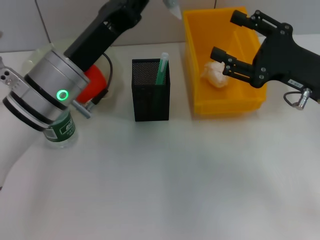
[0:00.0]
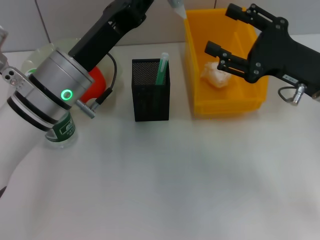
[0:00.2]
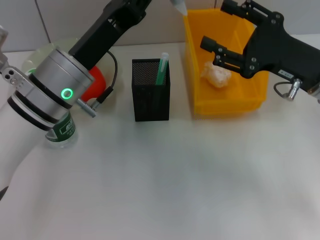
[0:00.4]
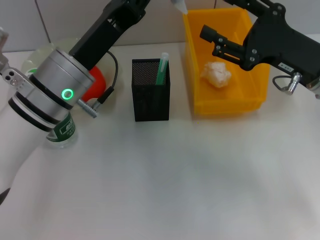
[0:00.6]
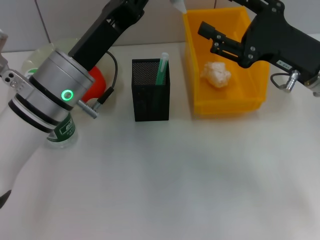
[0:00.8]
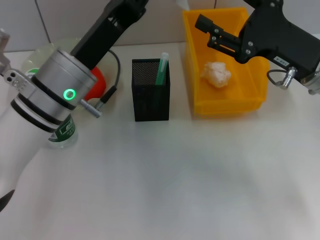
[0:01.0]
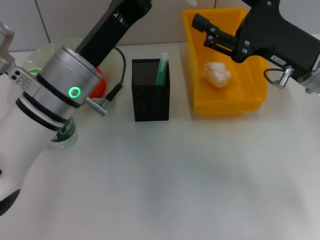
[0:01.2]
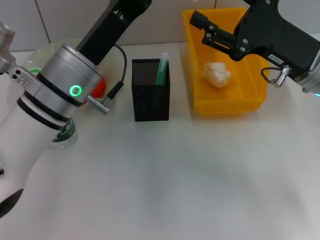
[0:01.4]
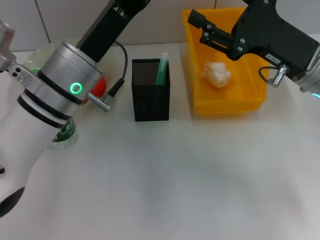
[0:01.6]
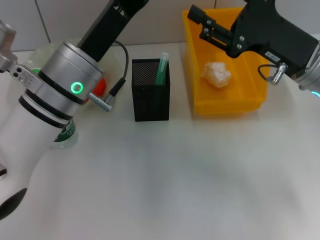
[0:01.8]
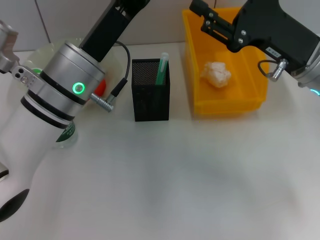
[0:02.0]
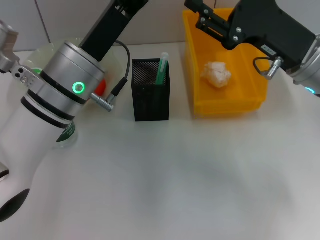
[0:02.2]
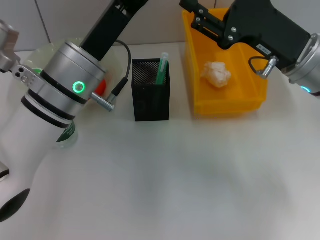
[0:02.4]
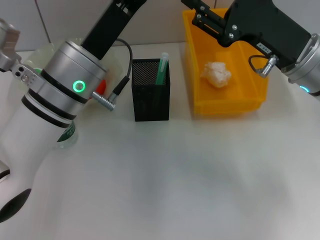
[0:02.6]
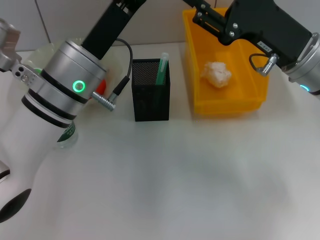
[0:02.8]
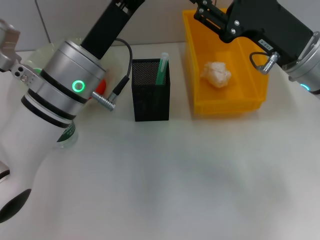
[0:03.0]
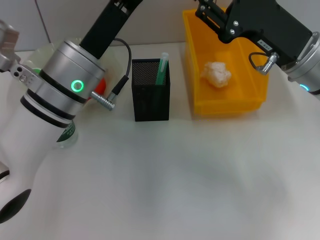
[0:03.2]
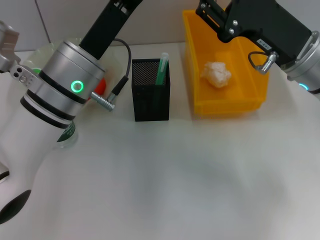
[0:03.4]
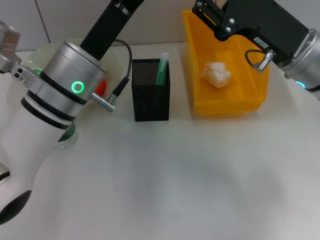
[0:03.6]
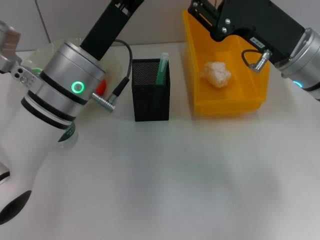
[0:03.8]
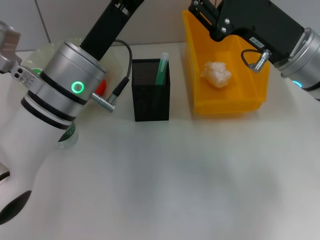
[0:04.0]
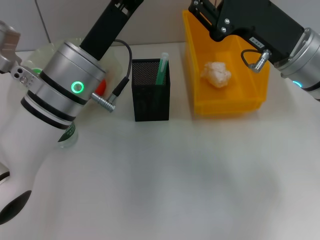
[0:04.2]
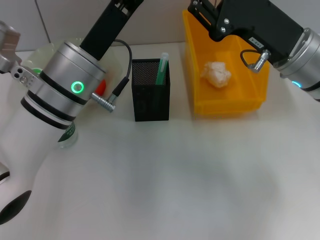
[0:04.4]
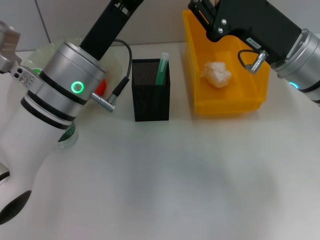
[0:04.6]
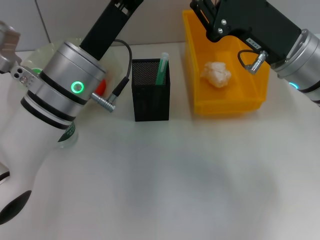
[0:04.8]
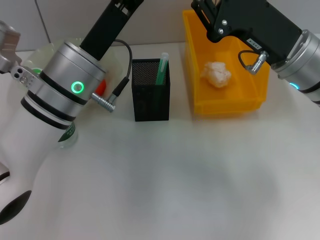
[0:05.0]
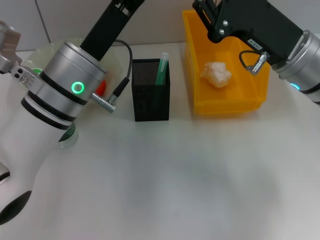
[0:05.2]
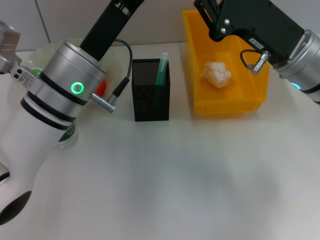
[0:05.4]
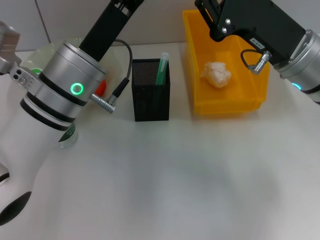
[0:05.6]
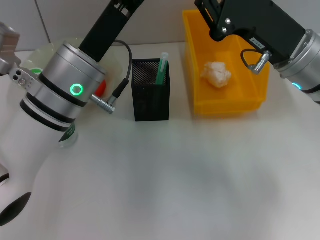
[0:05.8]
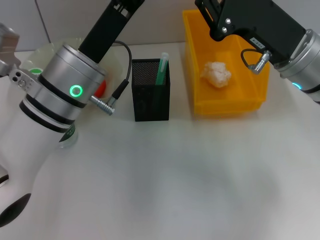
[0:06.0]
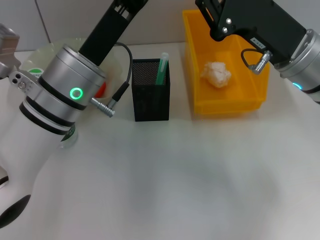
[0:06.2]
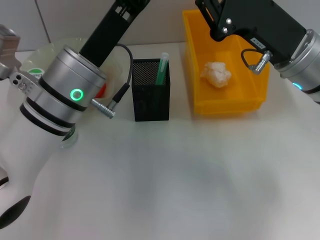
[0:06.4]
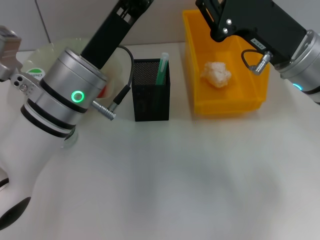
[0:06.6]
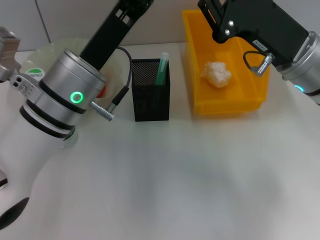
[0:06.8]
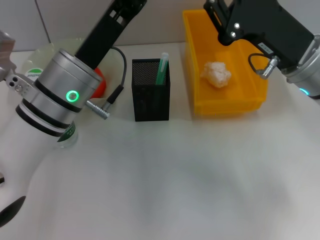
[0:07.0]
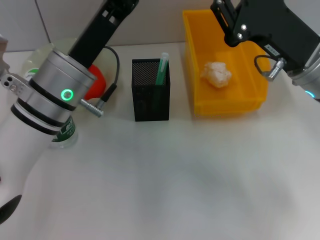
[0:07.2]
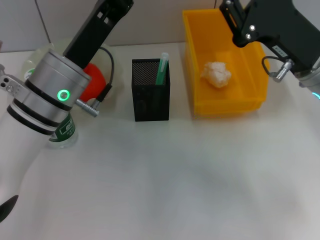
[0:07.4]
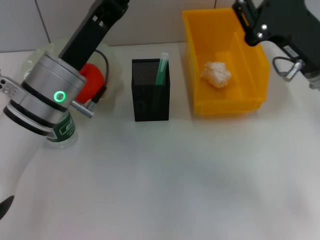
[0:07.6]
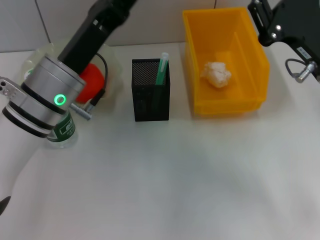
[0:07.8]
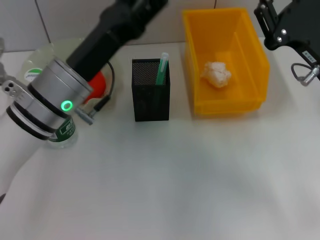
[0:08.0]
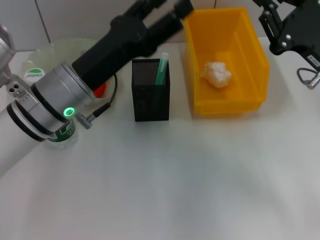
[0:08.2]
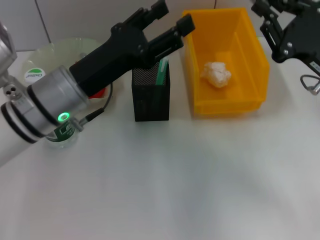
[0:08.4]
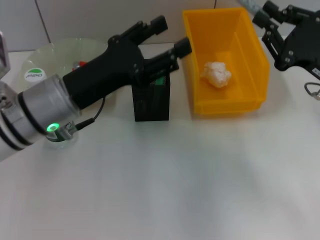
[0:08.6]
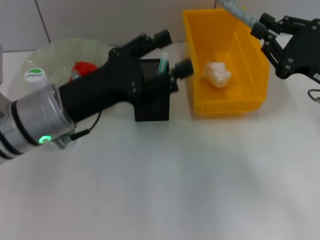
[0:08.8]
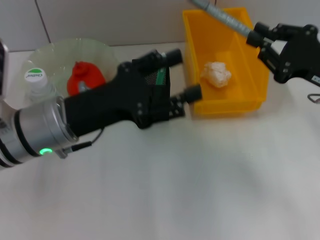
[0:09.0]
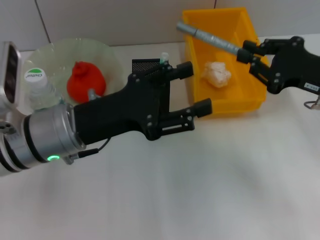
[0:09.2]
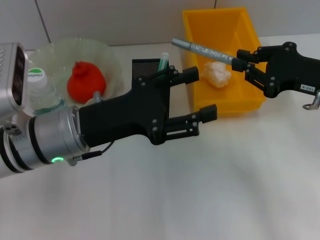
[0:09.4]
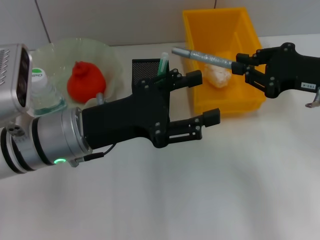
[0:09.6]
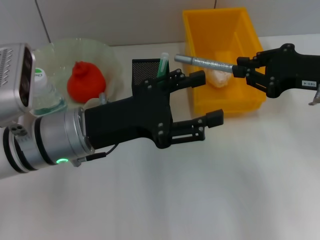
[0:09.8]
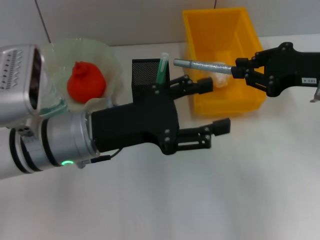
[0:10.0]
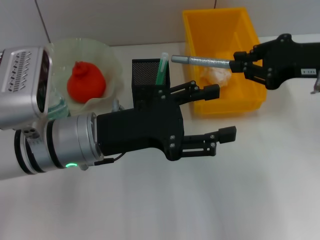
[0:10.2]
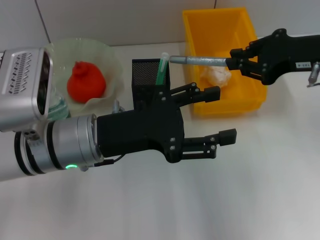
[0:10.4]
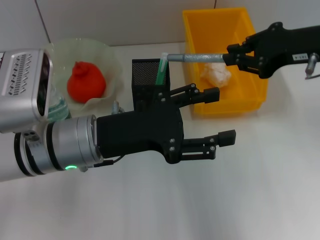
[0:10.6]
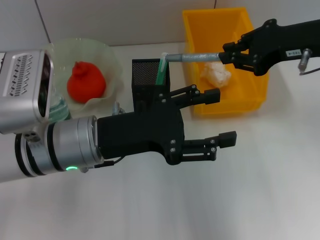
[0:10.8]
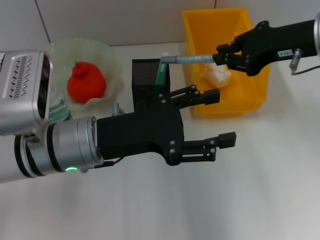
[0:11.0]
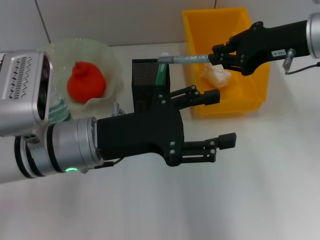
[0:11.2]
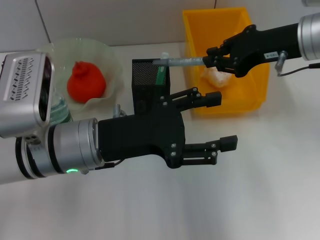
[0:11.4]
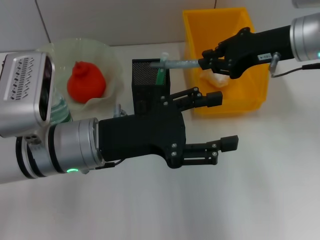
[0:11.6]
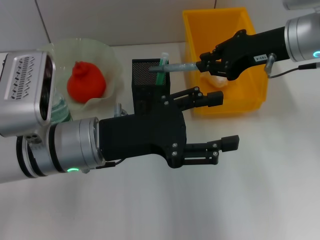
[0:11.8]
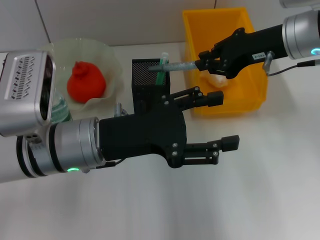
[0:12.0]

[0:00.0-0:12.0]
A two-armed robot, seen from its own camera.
Step, 0:00.0 to 0:09.6: Pass the gray glue from the left hand to the right hand.
0:00.0 to 0:03.0: The grippers stay close to where they were, moving slightly.
0:03.0 to 0:04.4: The two grippers keep their place.
0:04.4 to 0:06.0: The right gripper closes its fingers.
0:06.0 to 0:07.6: The left gripper opens its fingers.
0:07.6 to 0:09.0: The right gripper travels to the right by some 5 cm.
0:09.0 to 0:10.4: The right gripper travels upward by some 10 cm.
0:10.4 to 0:12.0: The right gripper goes about 5 cm forward.

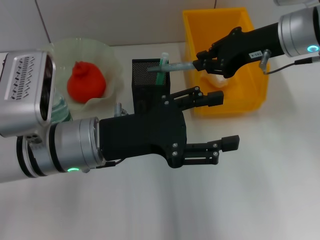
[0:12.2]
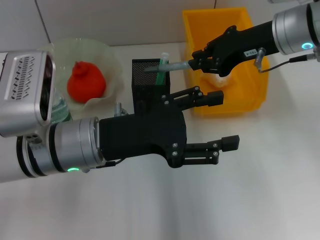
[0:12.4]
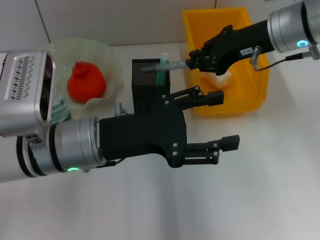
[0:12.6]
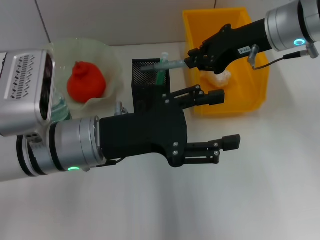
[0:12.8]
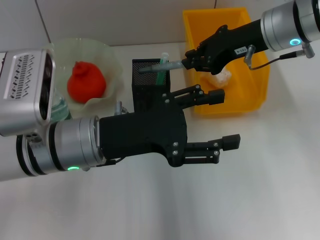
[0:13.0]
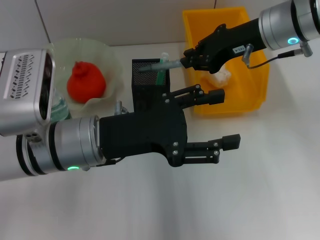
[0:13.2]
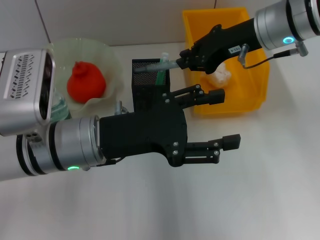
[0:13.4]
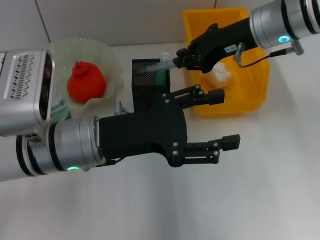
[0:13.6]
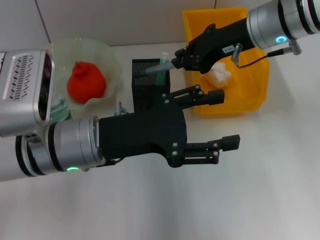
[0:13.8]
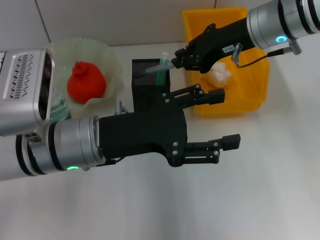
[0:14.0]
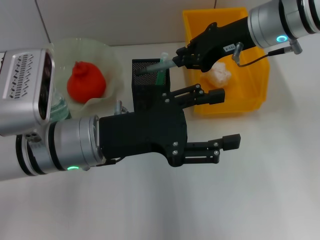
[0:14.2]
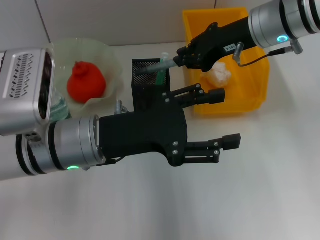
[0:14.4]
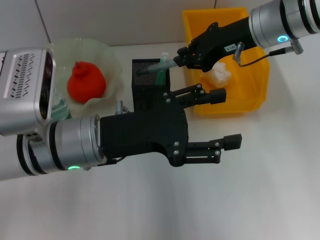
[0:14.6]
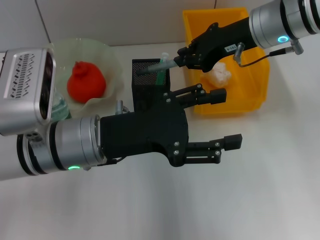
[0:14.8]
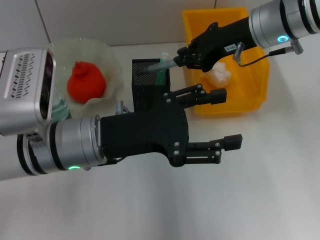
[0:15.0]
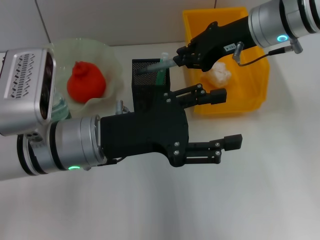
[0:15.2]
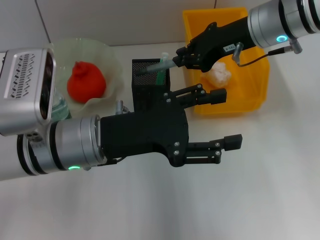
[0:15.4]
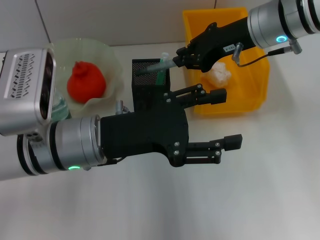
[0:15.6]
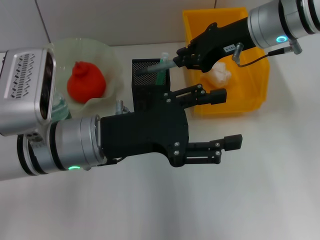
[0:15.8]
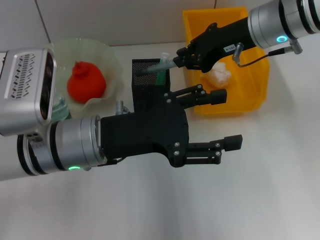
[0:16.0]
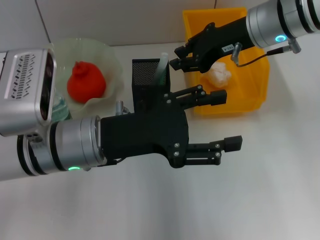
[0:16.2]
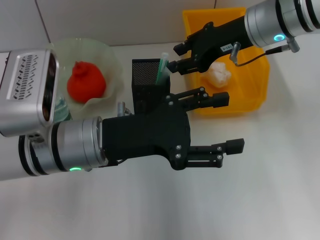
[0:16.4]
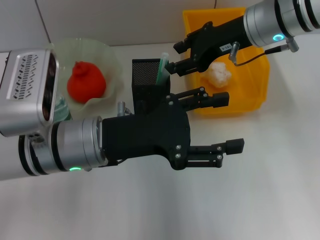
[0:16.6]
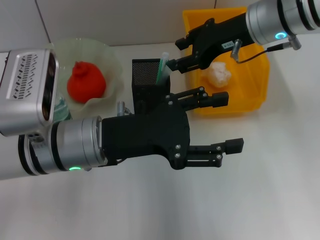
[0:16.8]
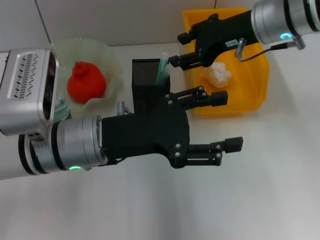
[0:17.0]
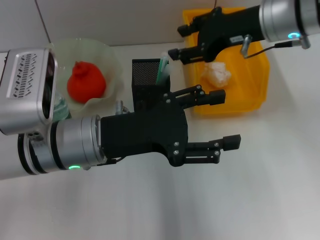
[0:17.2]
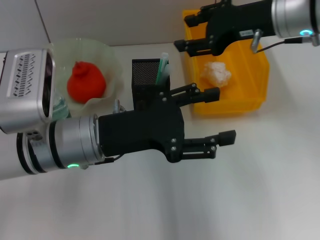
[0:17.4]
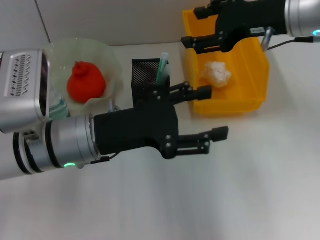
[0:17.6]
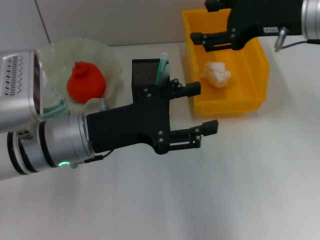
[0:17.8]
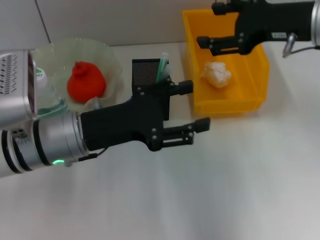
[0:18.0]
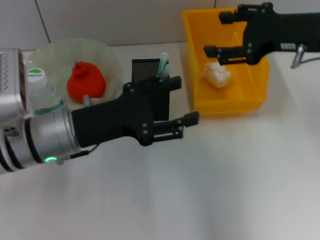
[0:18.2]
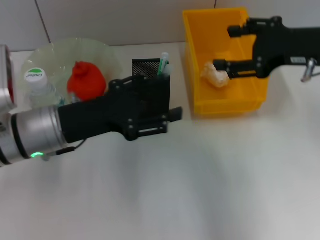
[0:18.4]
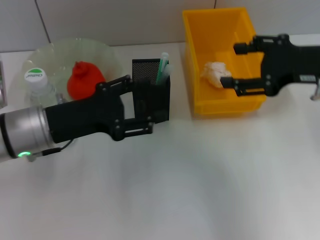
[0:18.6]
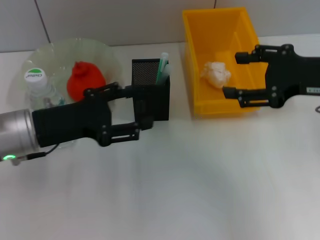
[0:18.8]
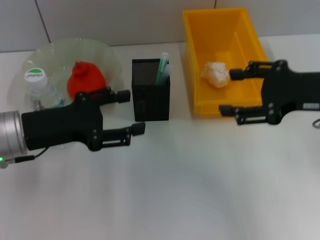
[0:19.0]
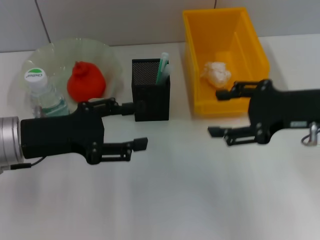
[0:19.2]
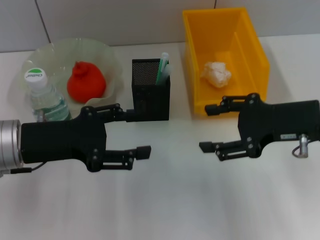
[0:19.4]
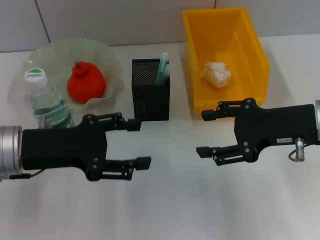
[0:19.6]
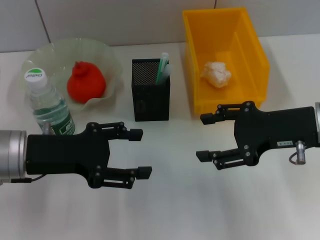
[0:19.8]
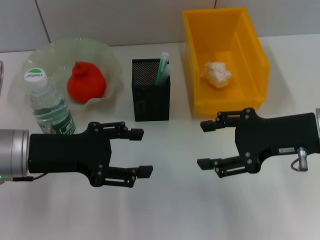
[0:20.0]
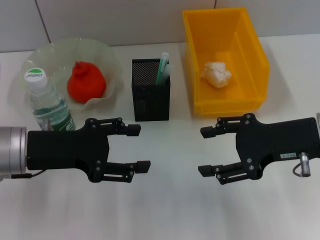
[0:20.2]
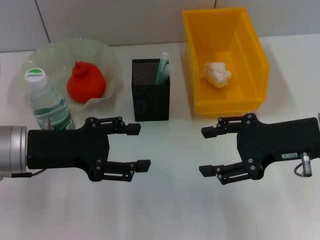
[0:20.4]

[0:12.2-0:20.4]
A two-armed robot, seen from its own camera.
Step, 0:12.2 to 0:17.0: Place the gray glue into the pen holder with the right hand.
0:12.2 to 0:13.8: The grippers make only small movements.
0:13.8 to 0:15.4: The two grippers keep their place.
0:15.4 to 0:17.2: The right gripper opens up.
0:17.2 to 0:18.8: The left gripper moves to the left, approximately 10 cm, while the right gripper moves backward and to the right, about 15 cm.
0:18.8 to 0:20.4: The right gripper changes place by about 5 cm.
